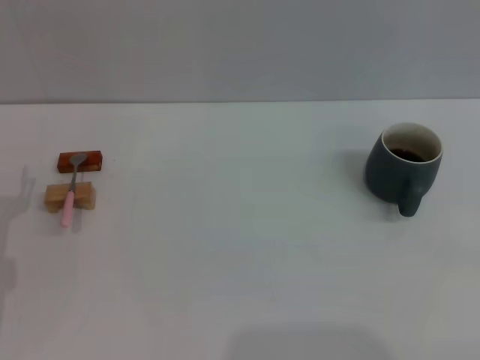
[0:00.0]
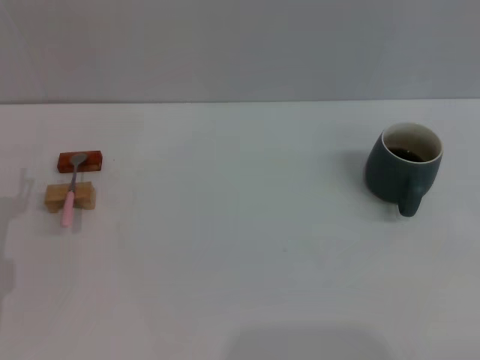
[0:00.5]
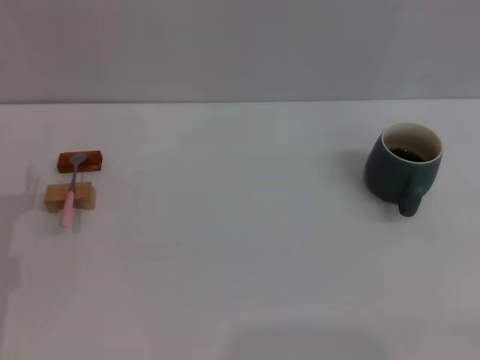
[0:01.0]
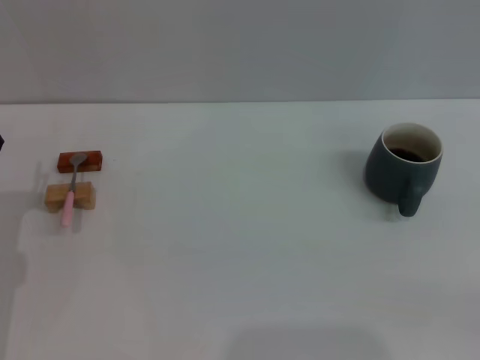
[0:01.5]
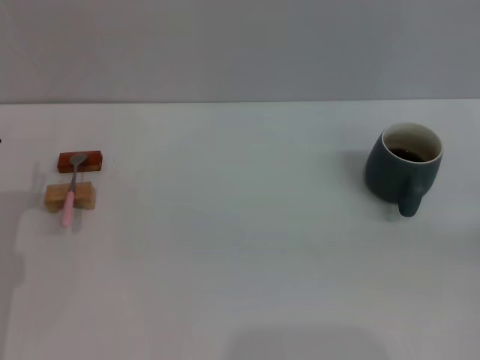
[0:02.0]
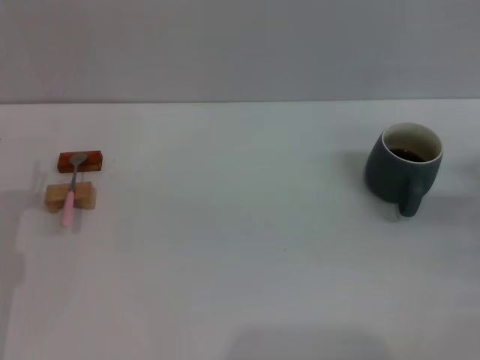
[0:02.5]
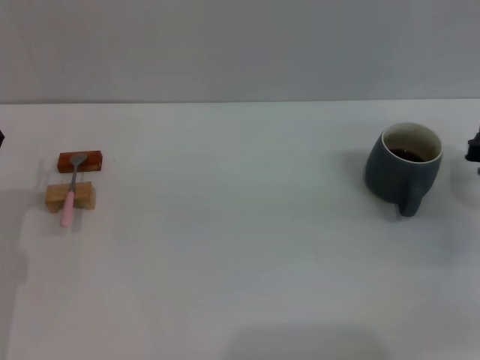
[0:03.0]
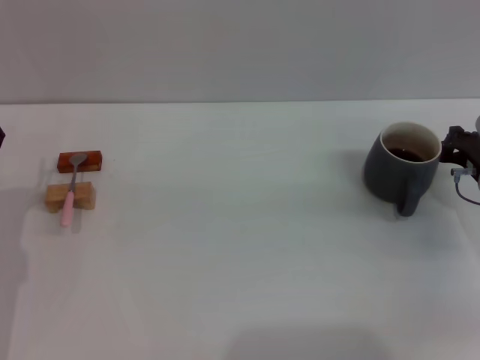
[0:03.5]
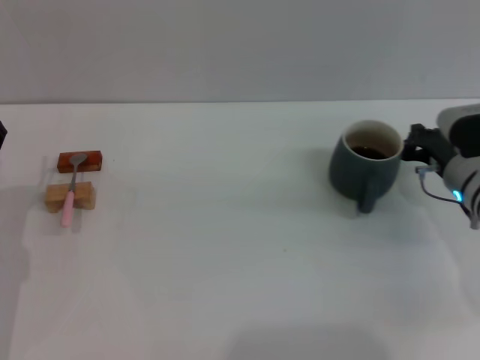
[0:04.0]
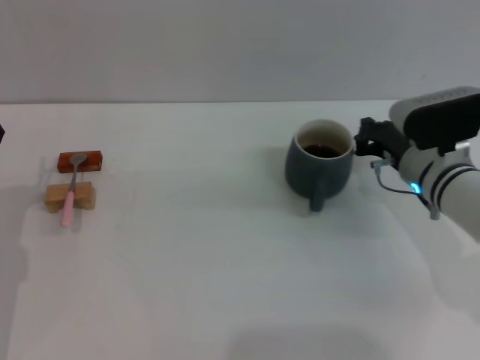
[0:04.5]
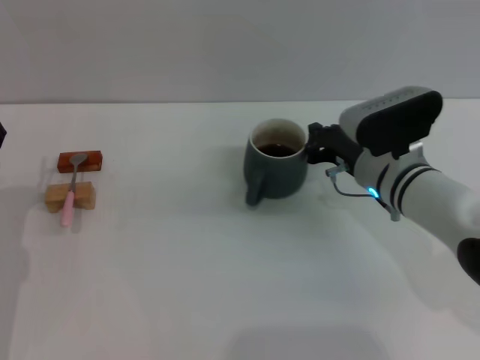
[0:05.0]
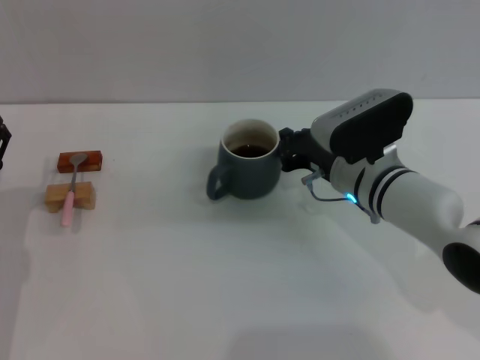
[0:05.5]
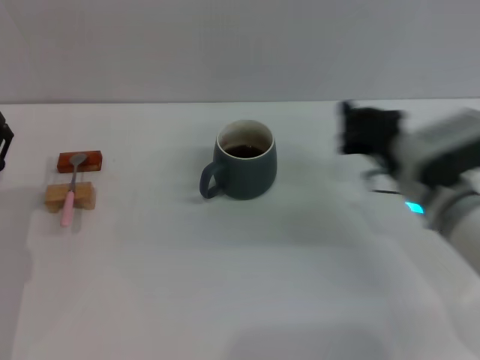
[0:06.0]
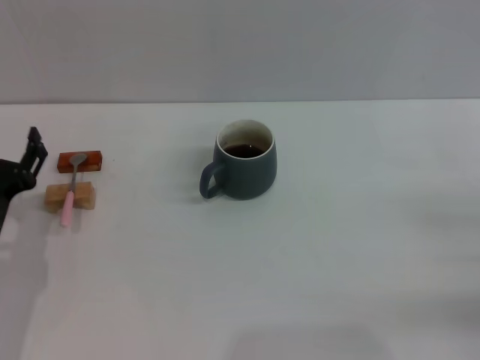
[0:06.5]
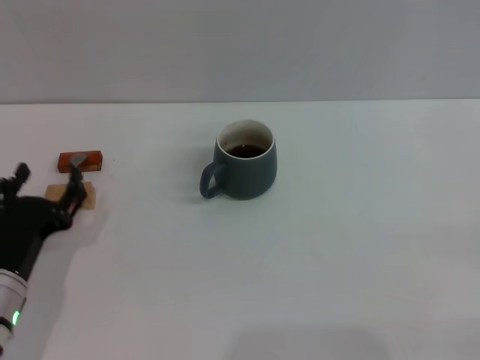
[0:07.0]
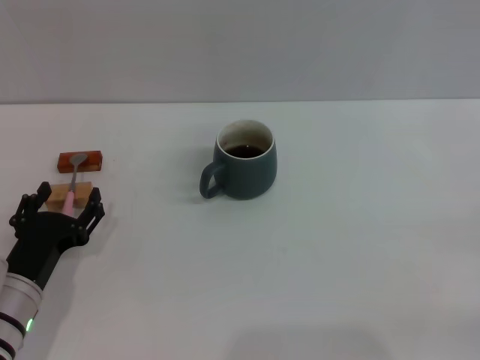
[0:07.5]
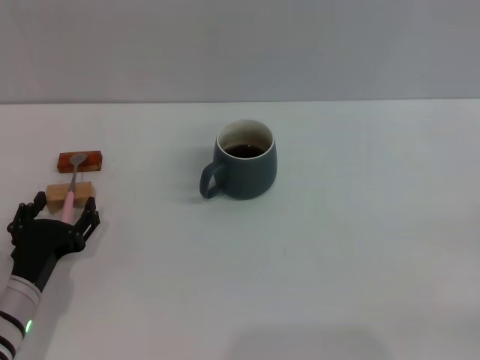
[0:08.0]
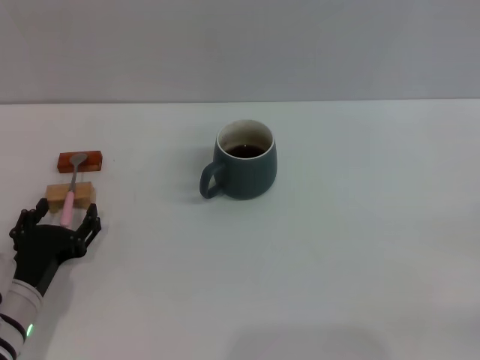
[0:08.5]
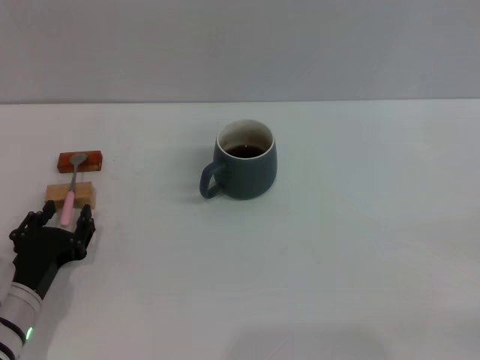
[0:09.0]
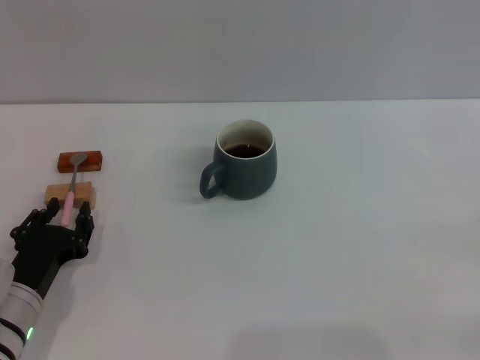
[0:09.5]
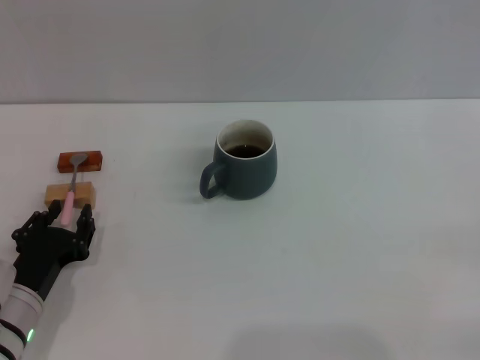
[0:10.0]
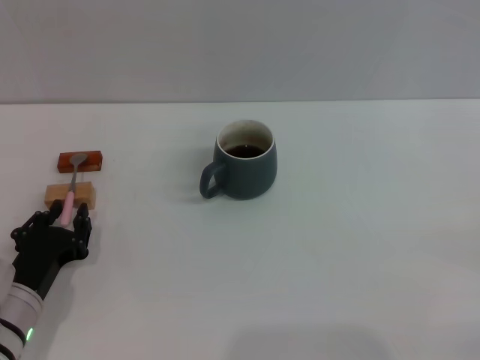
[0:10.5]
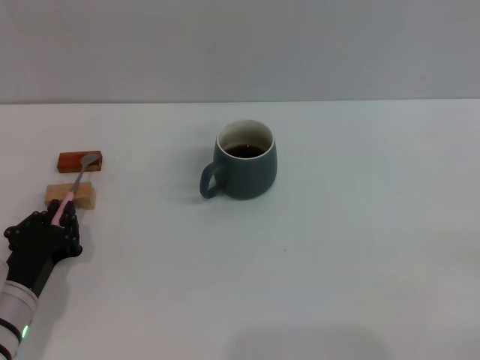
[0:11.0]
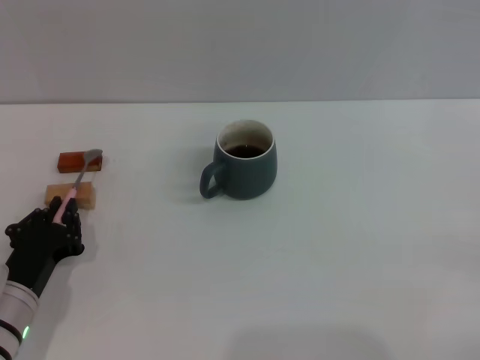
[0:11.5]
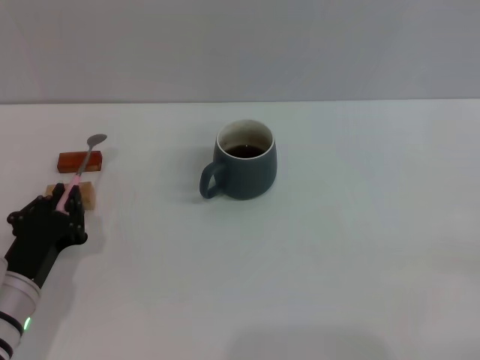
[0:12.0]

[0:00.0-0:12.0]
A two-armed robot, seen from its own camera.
Task of the whole recording: Move the grey cup to the center, lift the pink spoon, stir it three times in the cup, and put the spoon into the cup.
Step, 0:00.0 to 0:05.5: Move the cup with coffee to the center of view with the right gripper.
0:02.0 to 0:04.0: The right gripper moves to the left and forward, approximately 20 cm.
0:04.0 to 0:06.0: The right gripper travels to the left and back again, approximately 10 cm each way.
0:06.0 to 0:08.0: The left gripper shifts by some 5 cm. Meanwhile the right gripper goes some 25 cm to the right and backward, and opens up.
0:08.0 to 0:10.0: The left gripper closes up.
0:10.0 to 0:12.0: The left gripper closes its fingers.

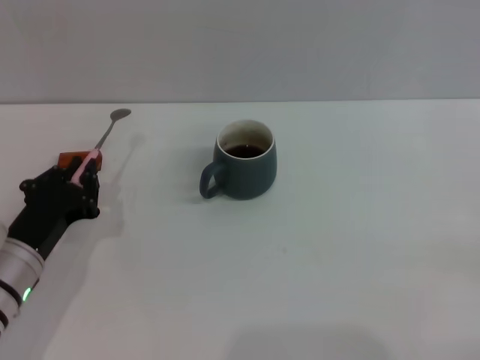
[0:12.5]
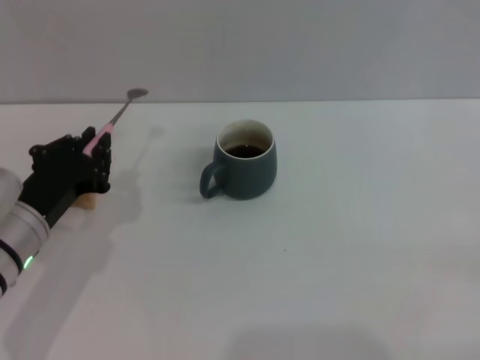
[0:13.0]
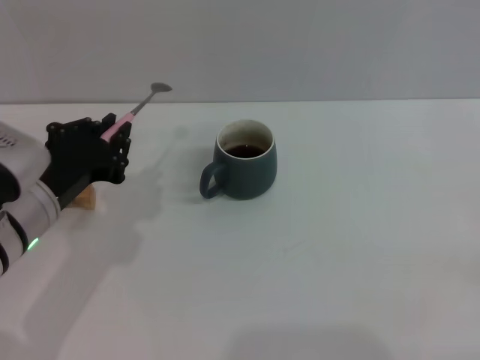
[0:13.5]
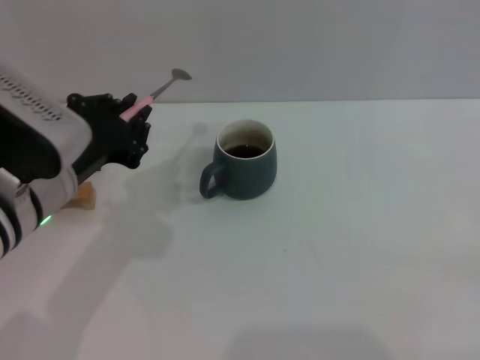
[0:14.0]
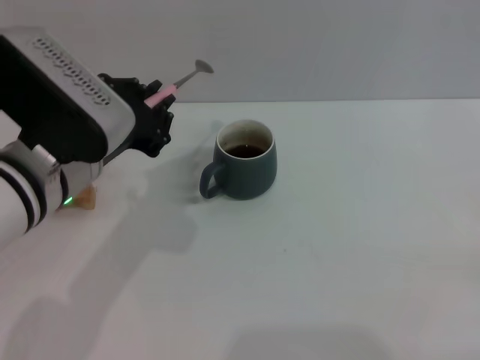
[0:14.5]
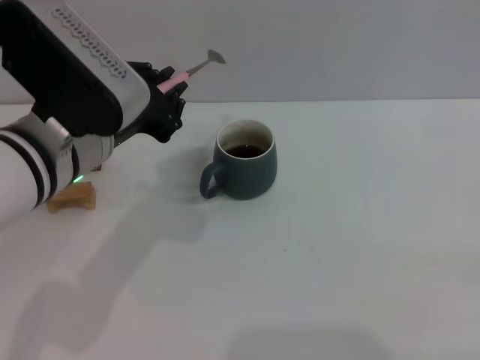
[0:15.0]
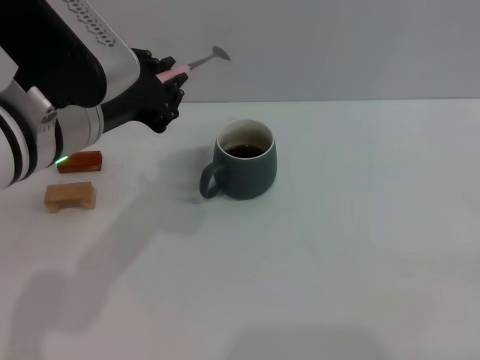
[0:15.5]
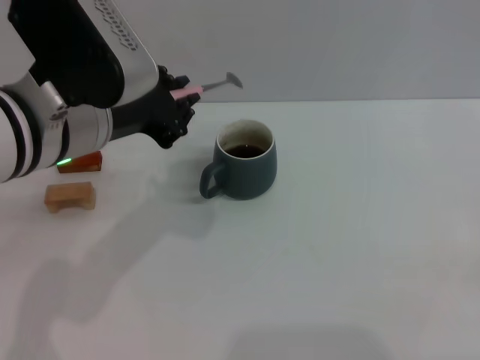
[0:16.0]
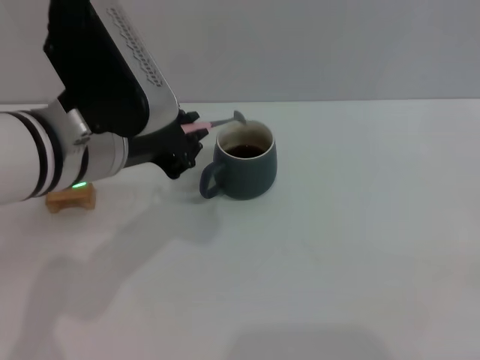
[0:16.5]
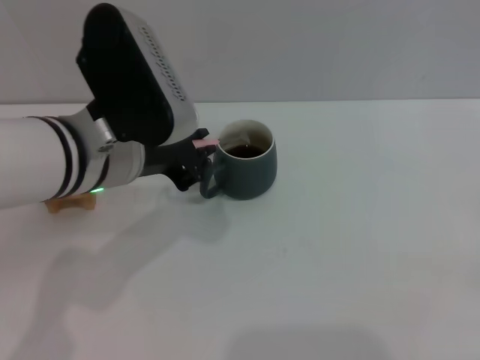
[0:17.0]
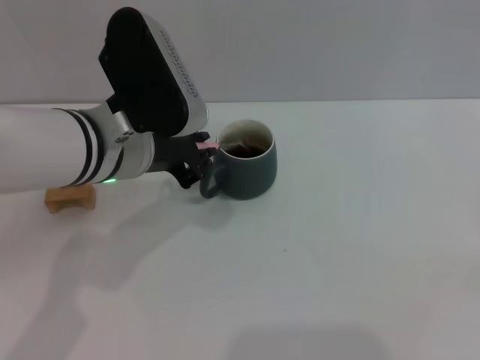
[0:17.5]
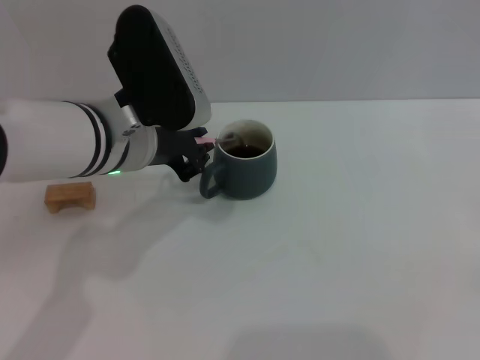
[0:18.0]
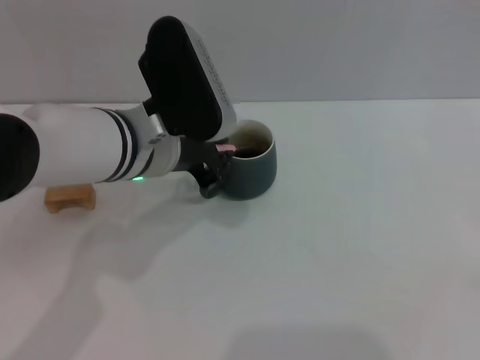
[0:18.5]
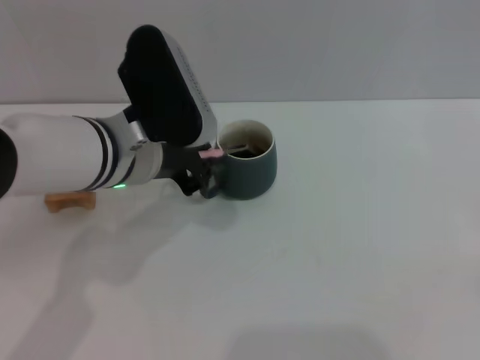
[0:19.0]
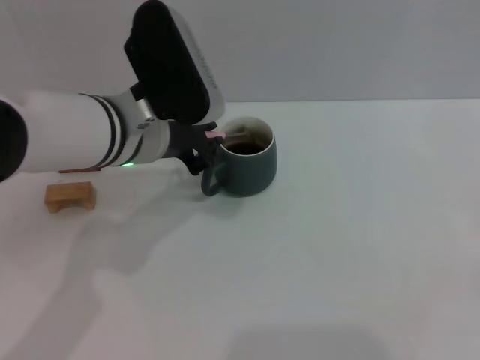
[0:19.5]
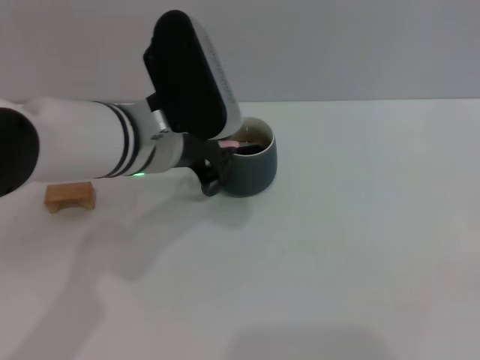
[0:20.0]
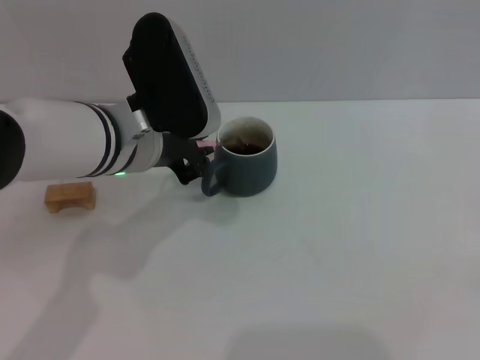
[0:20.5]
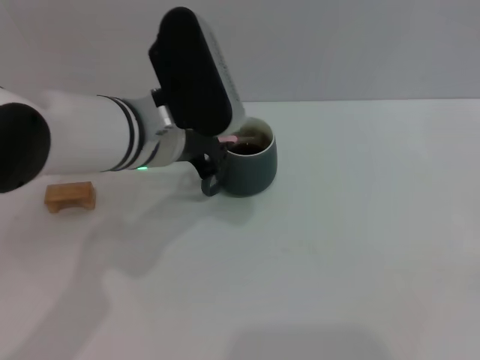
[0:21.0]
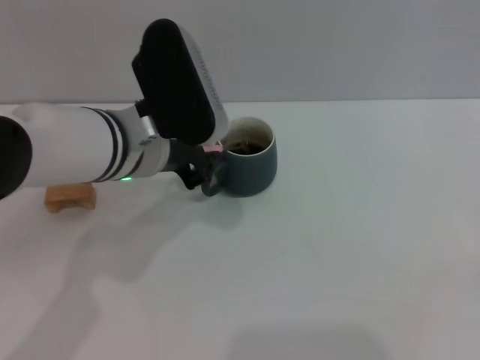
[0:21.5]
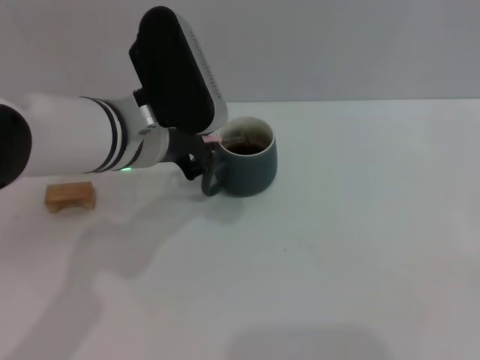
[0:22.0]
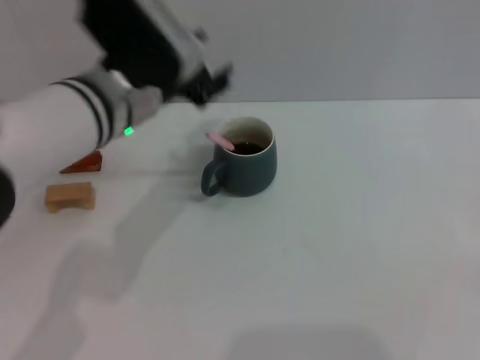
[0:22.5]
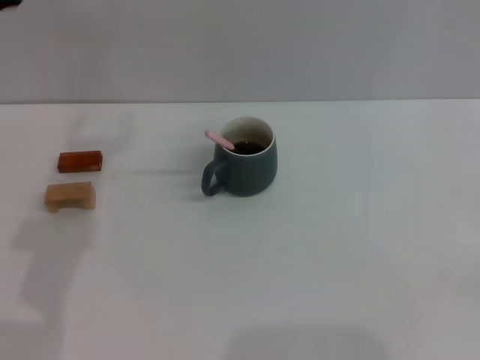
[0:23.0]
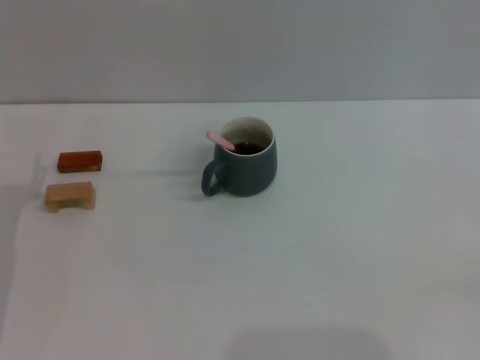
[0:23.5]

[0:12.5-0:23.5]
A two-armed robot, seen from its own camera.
Task of the whole recording: Move the grey cup to the center, lift the pink spoon, stir it three times in the cup, and put the spoon into the cup.
Step, 0:13.5 to 0:22.0: Stir the coffee in the cup with the left gripper.
0:12.5 to 0:14.5: The left gripper goes some 15 cm upward and to the right.
0:14.5 to 0:16.0: The grippers stay close to where they were, moving slightly.
0:16.0 to 0:18.0: The left gripper moves downward, roughly 5 cm.
0:18.0 to 0:20.0: The grippers stay close to where they were, moving slightly.
0:20.0 to 0:21.5: Both grippers stay about where they are.
0:21.5 to 0:23.5: The left gripper moves to the left, downward and backward, roughly 25 cm, and opens.
